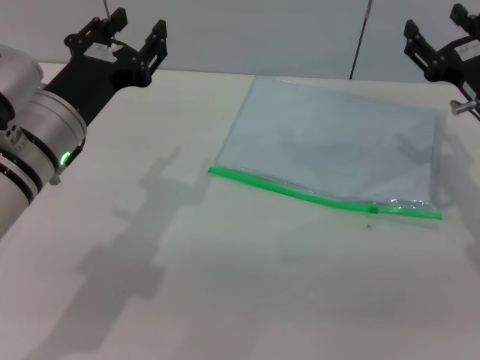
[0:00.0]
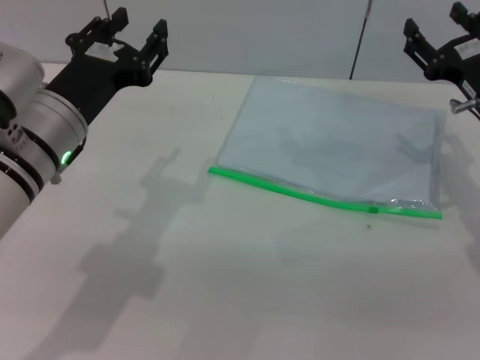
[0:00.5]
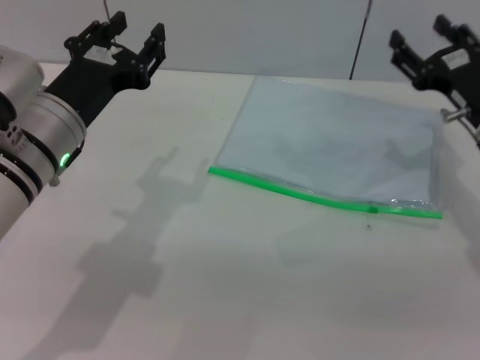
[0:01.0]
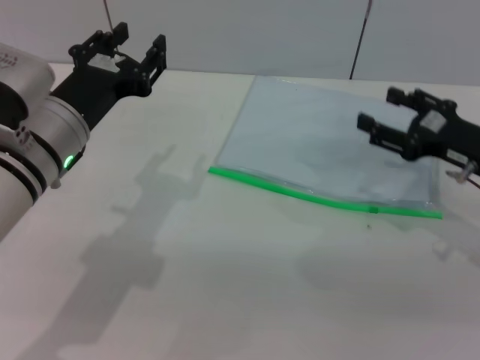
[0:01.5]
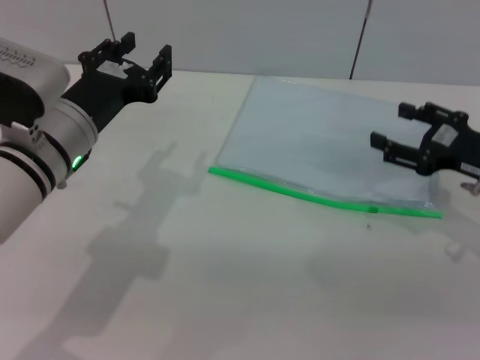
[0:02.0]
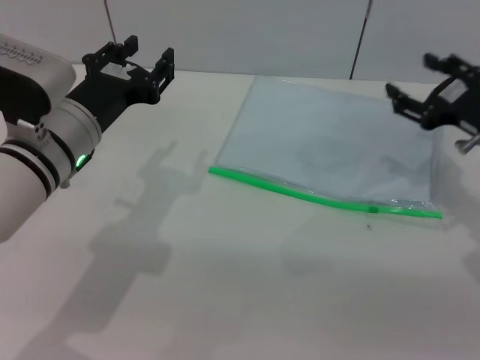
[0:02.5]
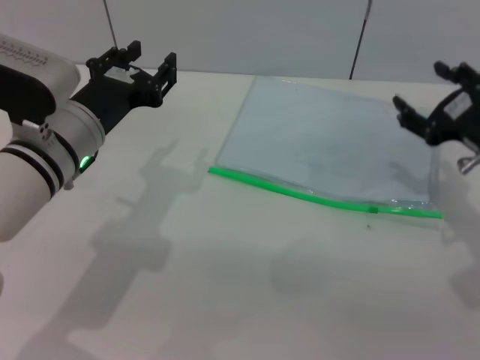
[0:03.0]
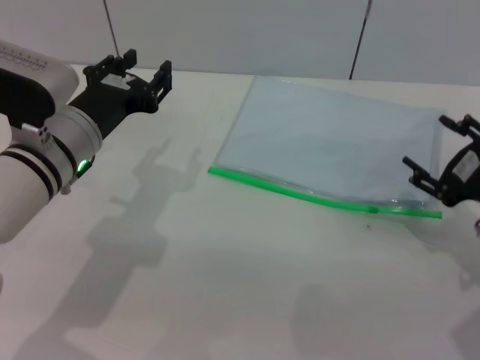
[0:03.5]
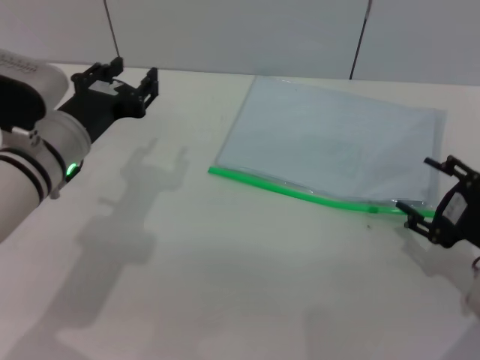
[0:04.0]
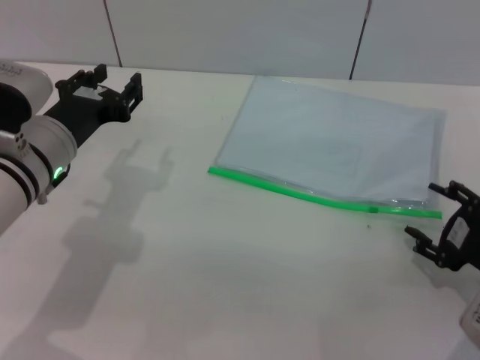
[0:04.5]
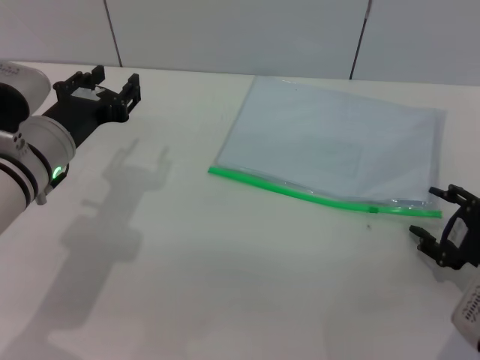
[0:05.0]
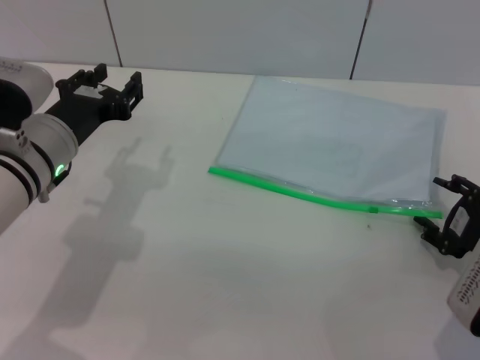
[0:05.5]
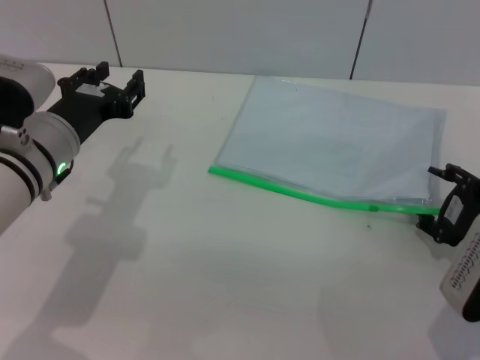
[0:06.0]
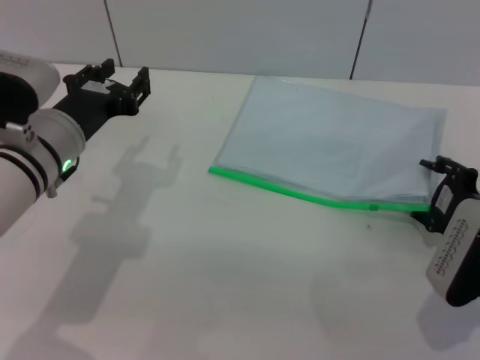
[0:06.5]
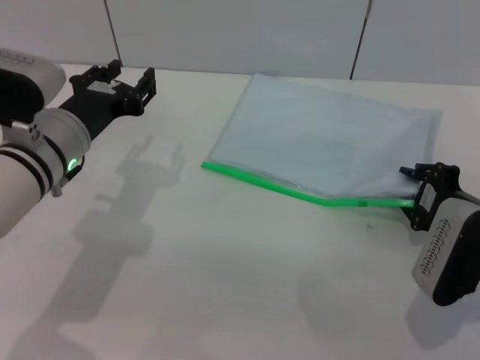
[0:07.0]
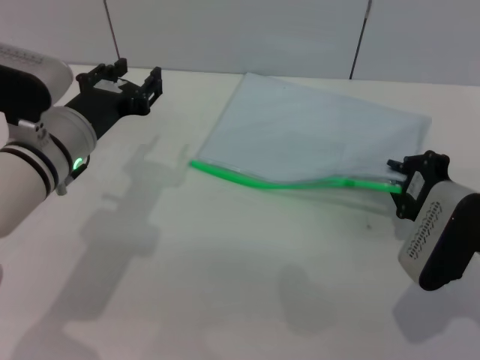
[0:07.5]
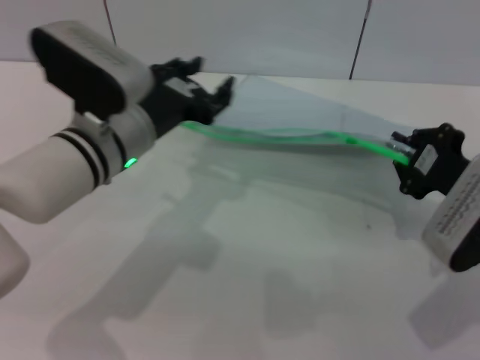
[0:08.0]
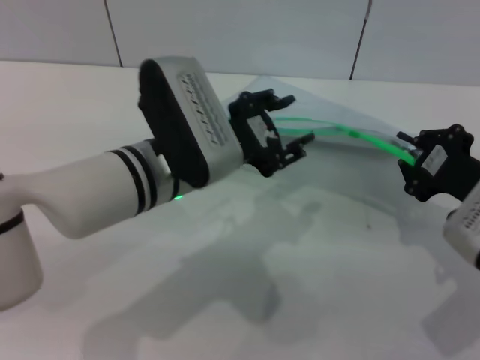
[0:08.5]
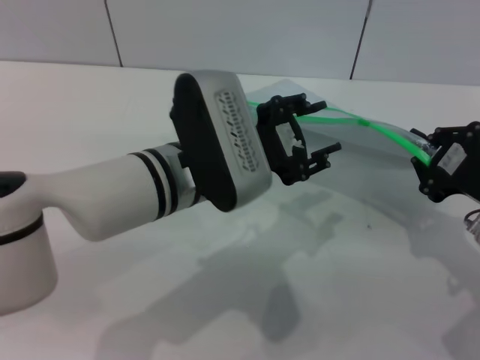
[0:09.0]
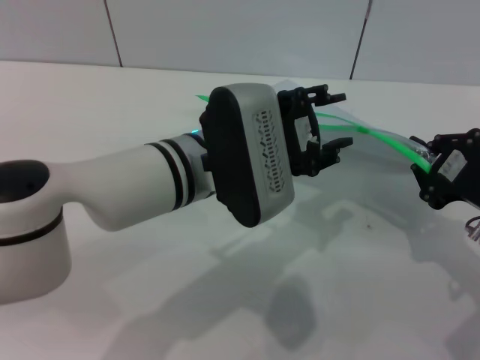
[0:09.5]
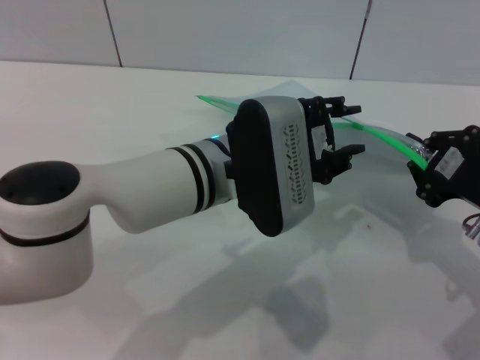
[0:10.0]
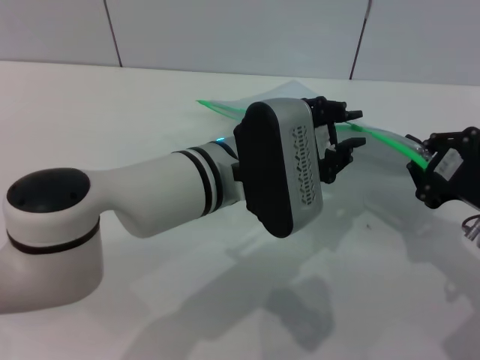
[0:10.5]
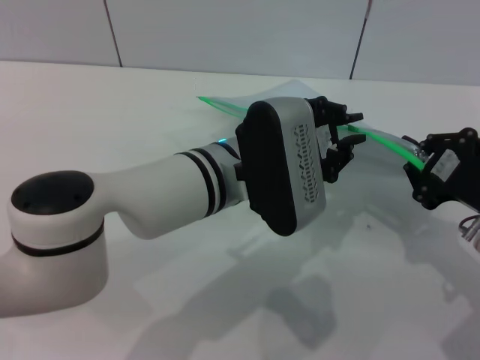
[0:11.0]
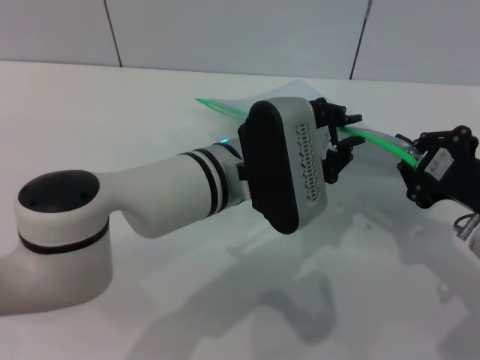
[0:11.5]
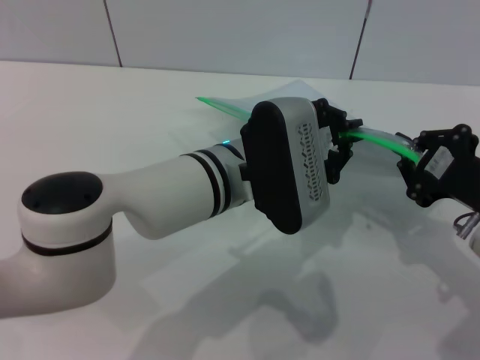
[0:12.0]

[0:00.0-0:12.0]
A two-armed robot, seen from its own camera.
Step, 0:00.0 to 0:08.0: Pick up the transparent plastic bag with the right gripper.
0:02.0 to 0:04.0: The right gripper shifts some 10 cm backward.
0:04.0 to 0:06.0: There are only small adjustments of the grippers.
0:06.0 to 0:08.0: The left gripper shifts roughly 5 cm to the right; the right gripper shifts by roughly 5 cm, and closes its fingers.
0:08.0 to 0:10.0: The left gripper heads to the right, covering roughly 10 cm.
0:10.0 to 0:12.0: The left gripper closes.

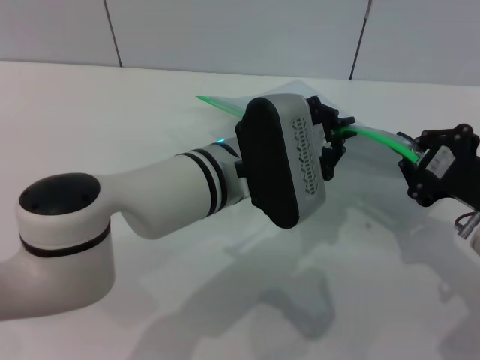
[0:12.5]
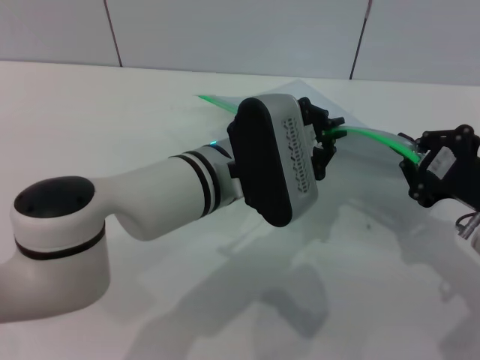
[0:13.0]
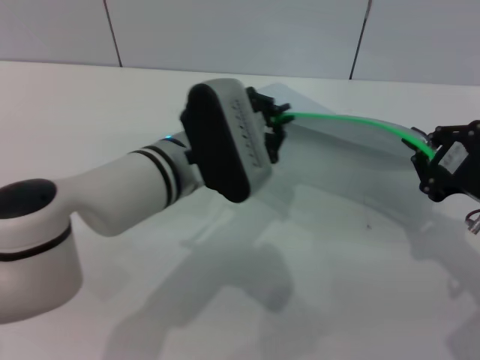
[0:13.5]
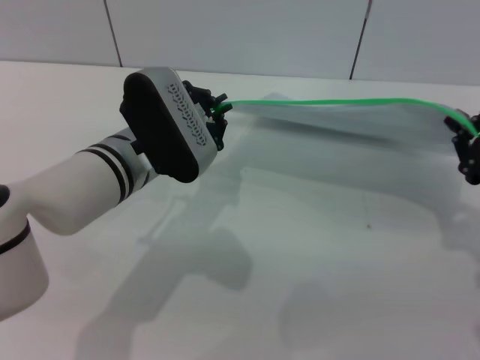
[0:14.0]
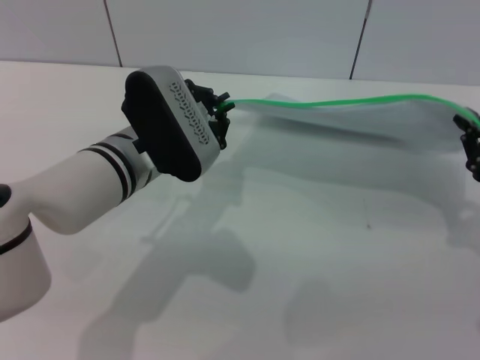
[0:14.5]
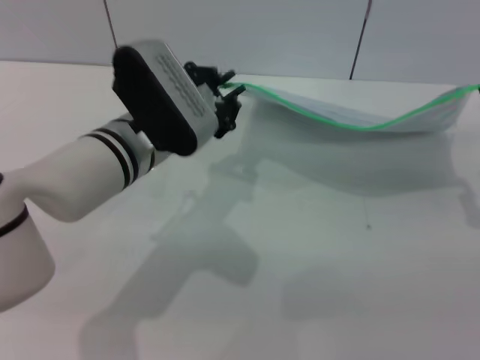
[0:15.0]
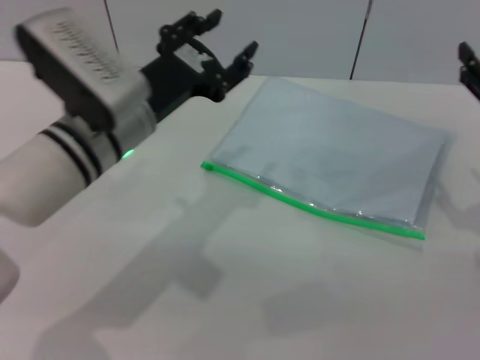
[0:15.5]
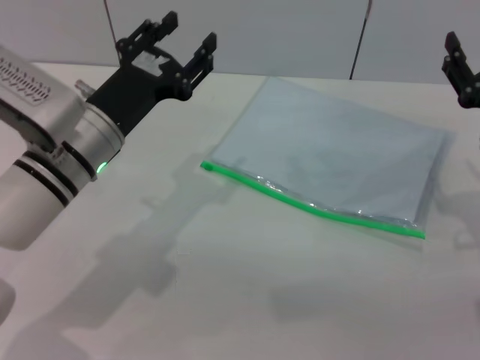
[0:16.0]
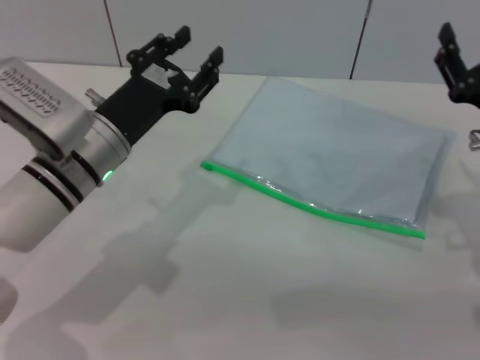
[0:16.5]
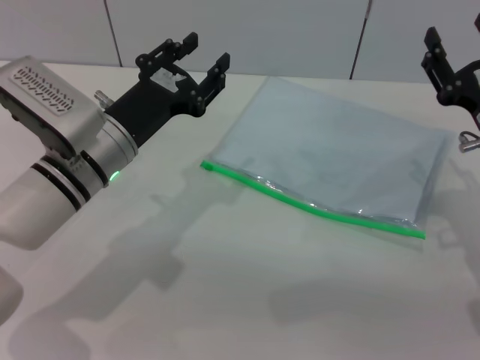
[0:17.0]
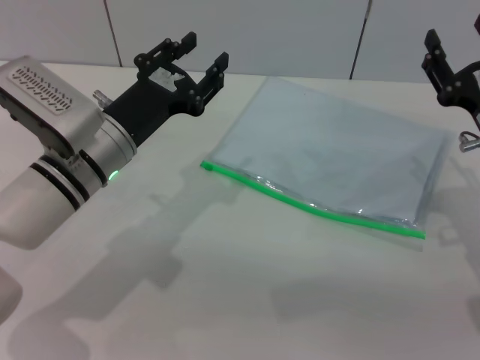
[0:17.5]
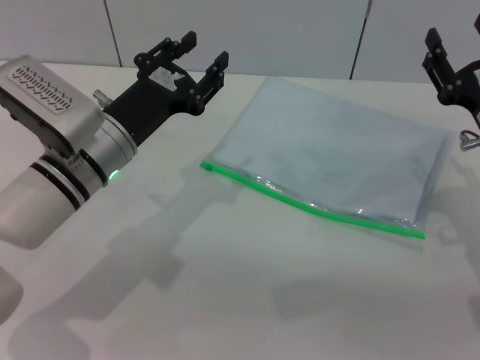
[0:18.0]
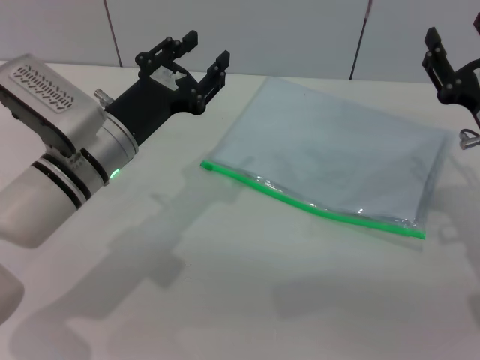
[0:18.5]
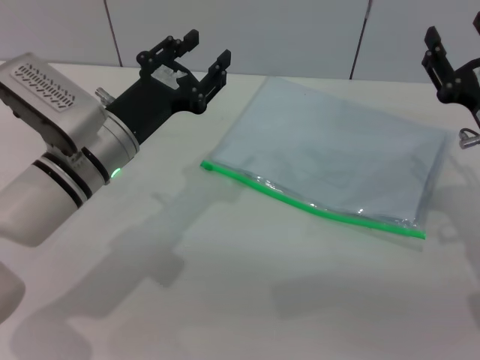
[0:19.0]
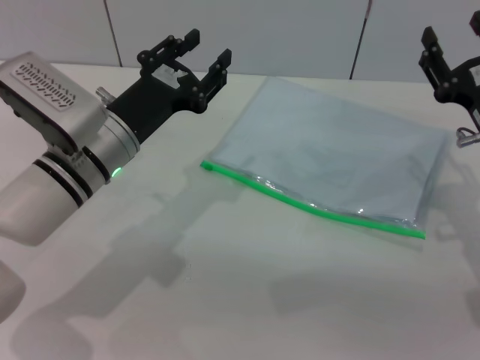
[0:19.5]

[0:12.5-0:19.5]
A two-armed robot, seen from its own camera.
Step, 0:12.5 to 0:15.0: Pulling up the zipper on the transparent plastic bag with the left gripper to close it.
Step, 0:15.5 to 0:16.0: Place the transparent plastic bag.
0:12.5 to 0:14.5: The left gripper shifts some 10 cm to the left.
0:14.5 to 0:16.0: The right gripper opens; the left gripper changes place by roughly 5 cm, and opens.
0:16.0 to 0:17.5: The grippers stay close to where they were, moving slightly.
0:17.5 to 0:19.5: Both grippers stay about where they are.
